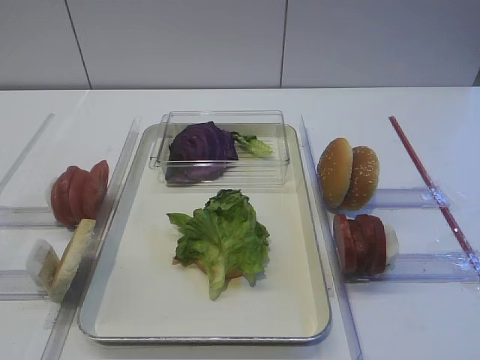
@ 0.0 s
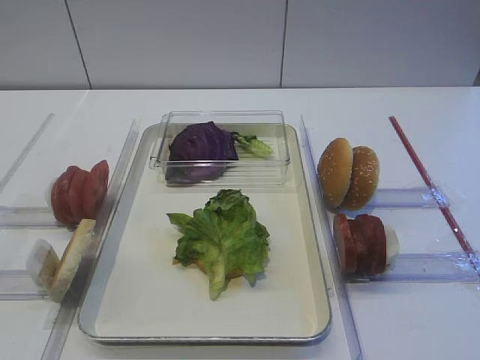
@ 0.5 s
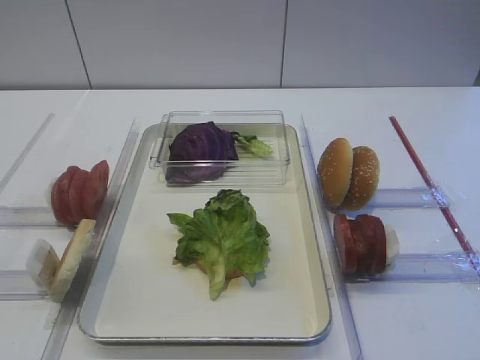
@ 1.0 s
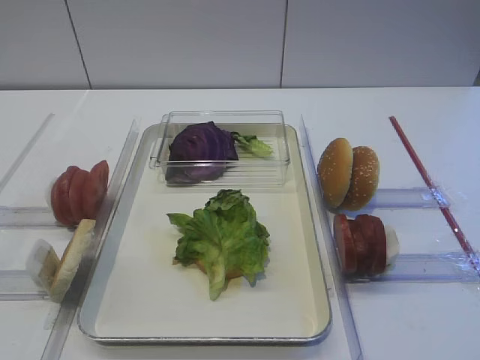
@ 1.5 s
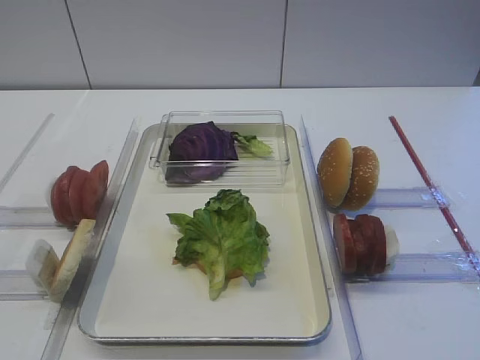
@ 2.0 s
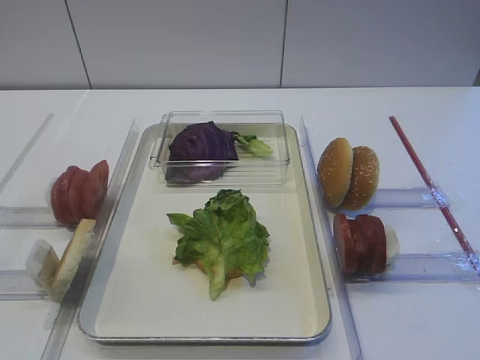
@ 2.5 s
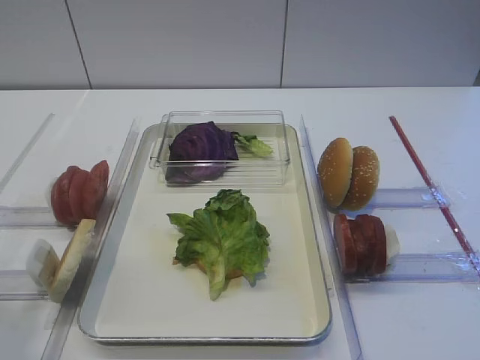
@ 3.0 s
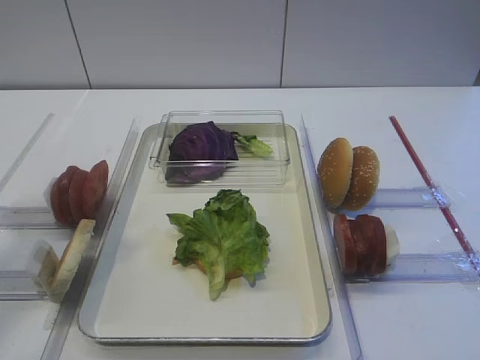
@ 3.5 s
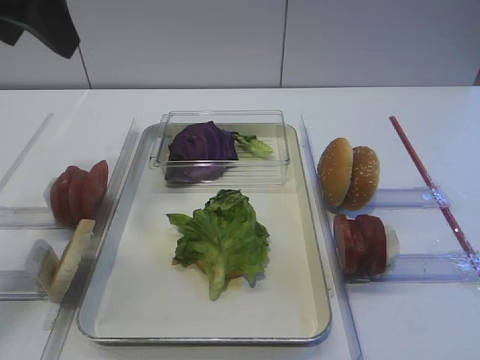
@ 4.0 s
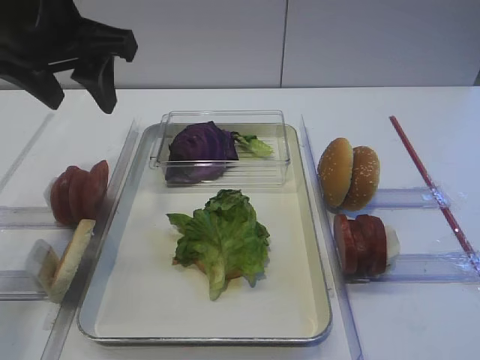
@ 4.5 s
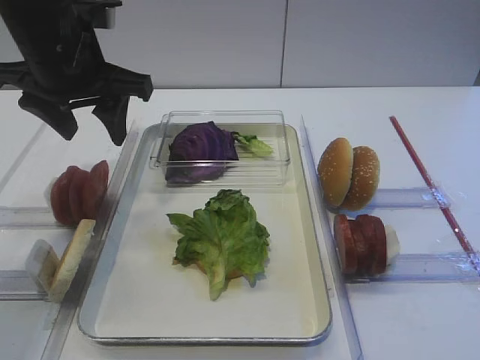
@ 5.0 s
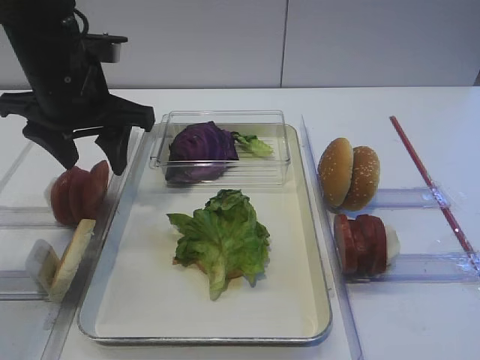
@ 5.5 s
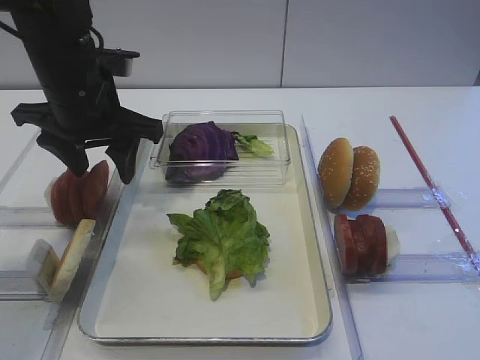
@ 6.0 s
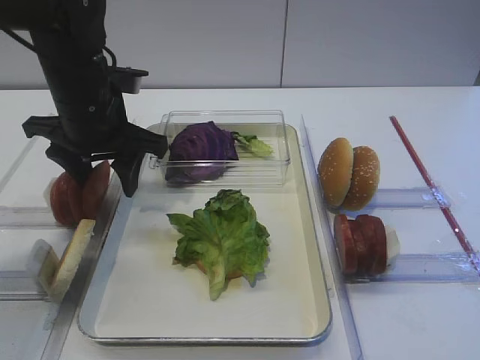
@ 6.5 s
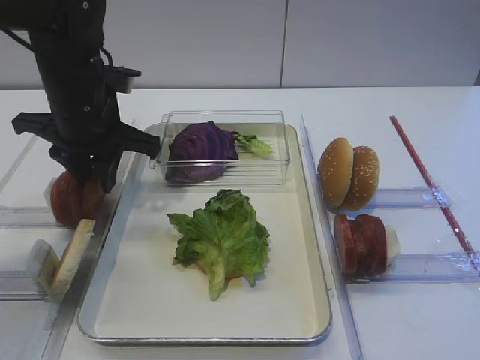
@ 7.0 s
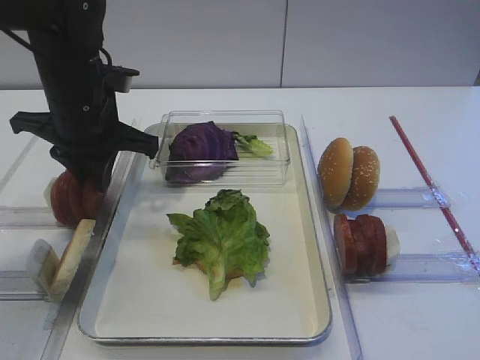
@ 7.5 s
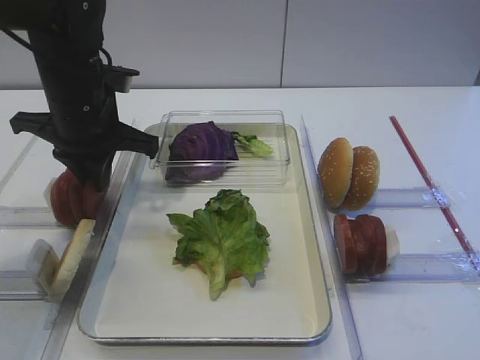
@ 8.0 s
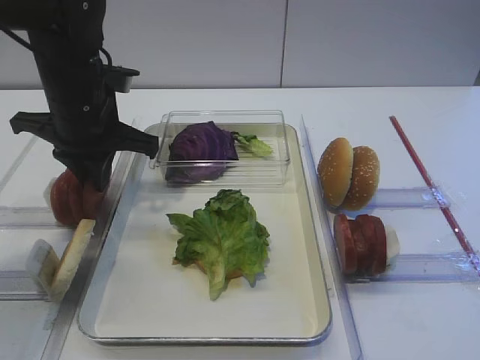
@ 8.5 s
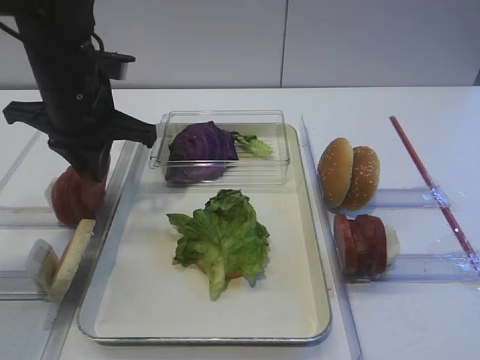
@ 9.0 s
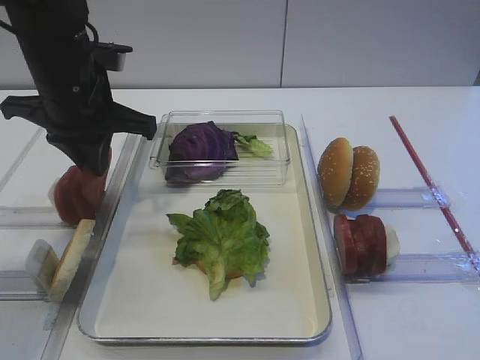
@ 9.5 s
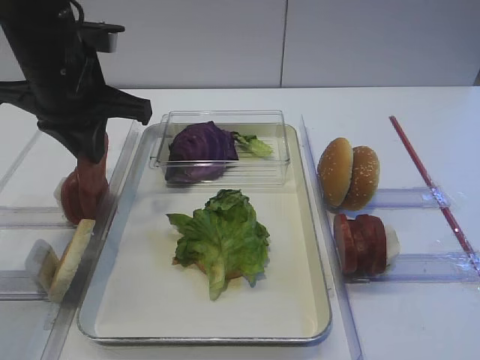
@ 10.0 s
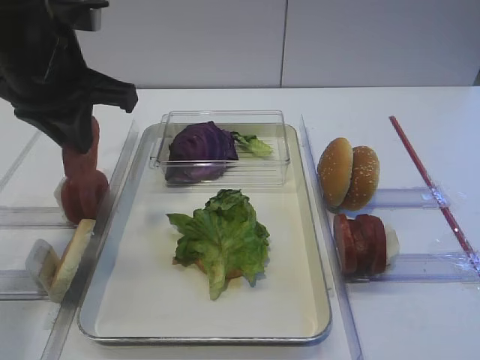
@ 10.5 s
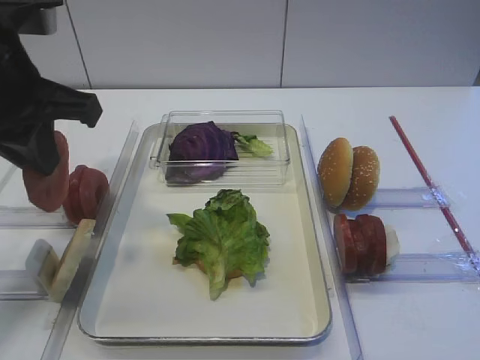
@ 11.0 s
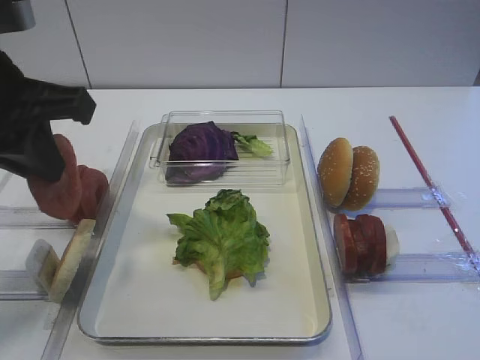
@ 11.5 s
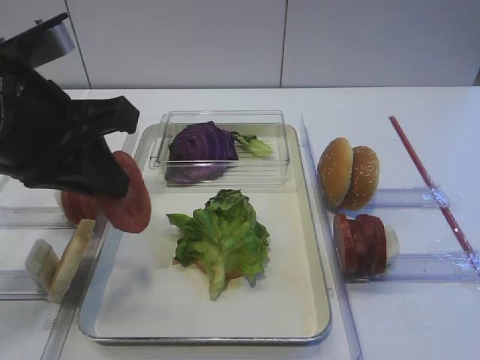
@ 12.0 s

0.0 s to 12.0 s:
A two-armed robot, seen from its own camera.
Step, 0.0 to 10.0 s: Pick up the tomato slice with the left gripper.
2.0 to 4.0 s: The left gripper goes some 30 cm forward and upward.
4.0 to 6.0 s: The left gripper is displaced downward and forward by about 20 cm.
6.0 to 8.0 s: The left gripper closes up.
8.0 to 10.0 s: The left gripper changes place by approximately 5 cm.
10.0 to 12.0 s: The left gripper shifts about 10 cm backward.

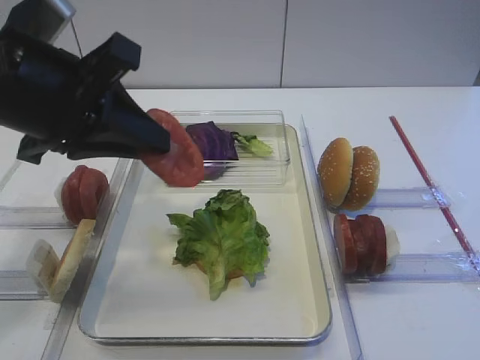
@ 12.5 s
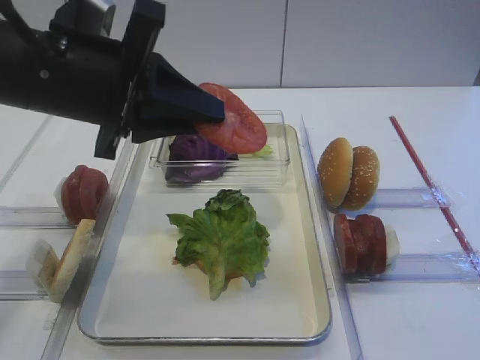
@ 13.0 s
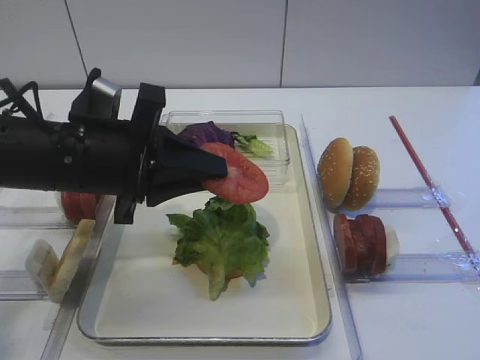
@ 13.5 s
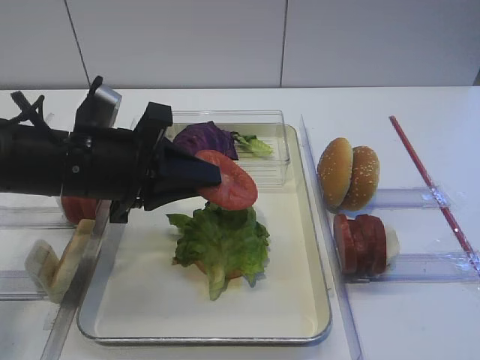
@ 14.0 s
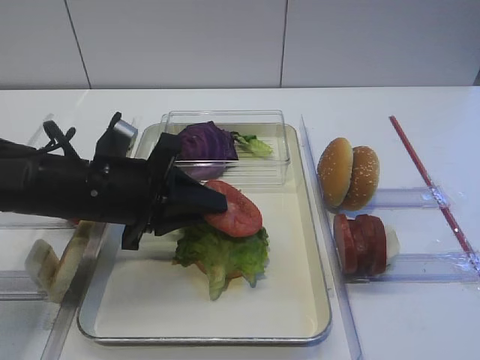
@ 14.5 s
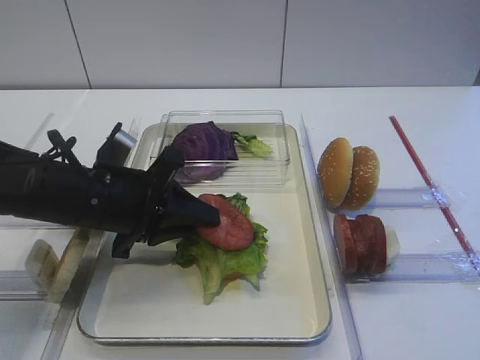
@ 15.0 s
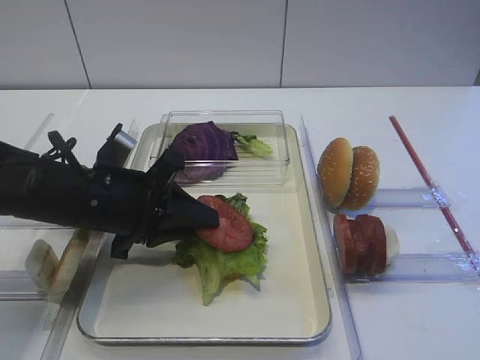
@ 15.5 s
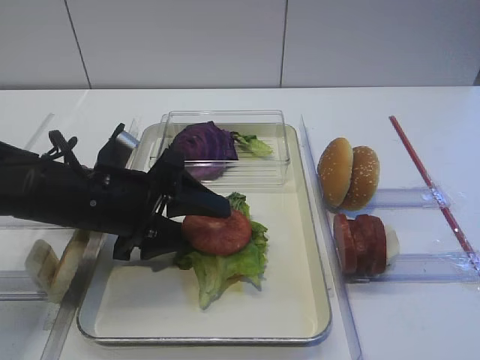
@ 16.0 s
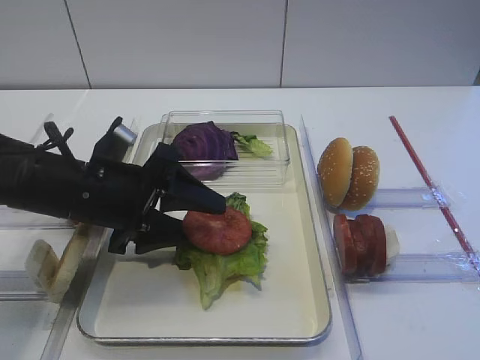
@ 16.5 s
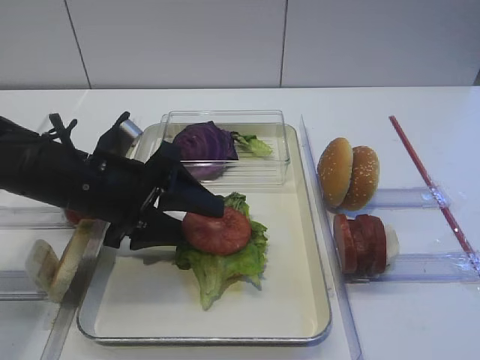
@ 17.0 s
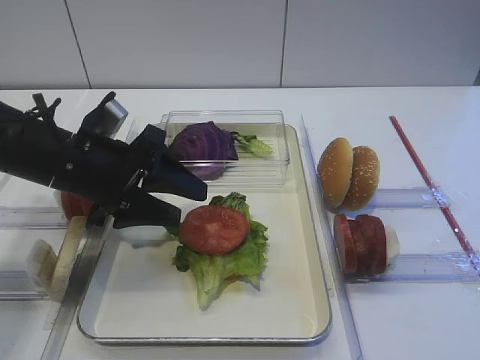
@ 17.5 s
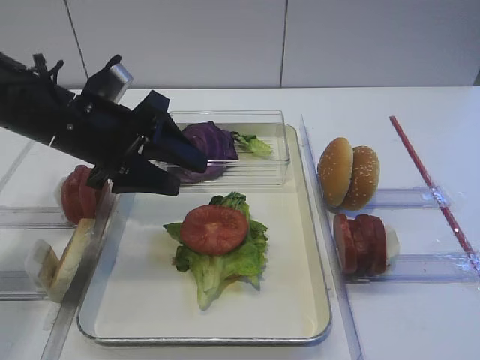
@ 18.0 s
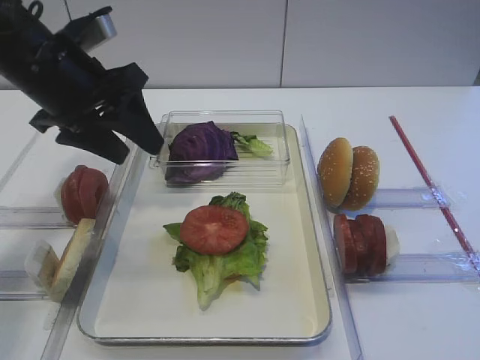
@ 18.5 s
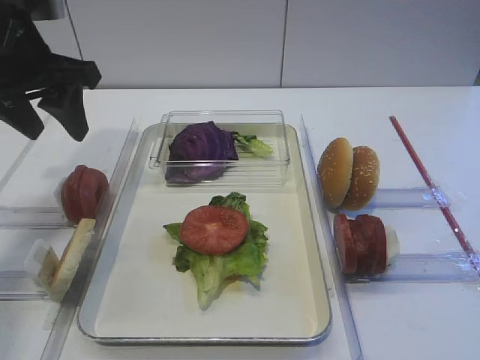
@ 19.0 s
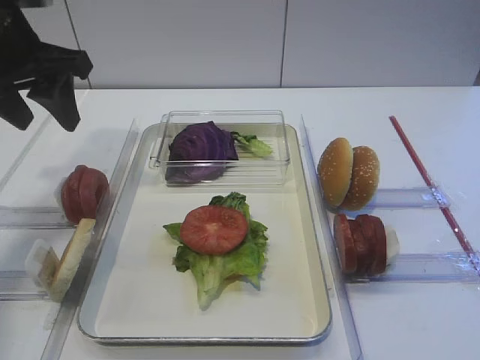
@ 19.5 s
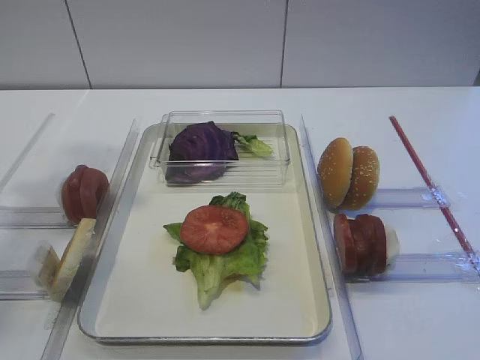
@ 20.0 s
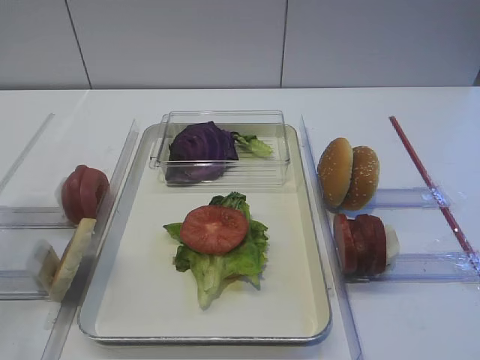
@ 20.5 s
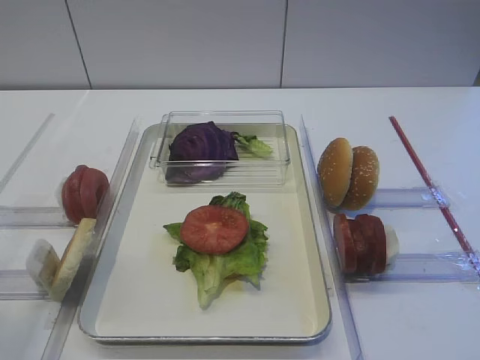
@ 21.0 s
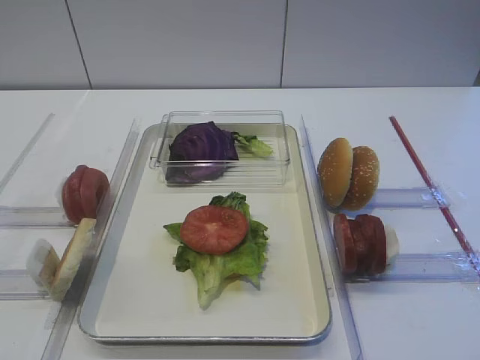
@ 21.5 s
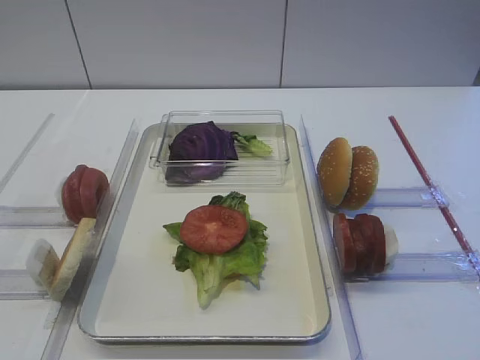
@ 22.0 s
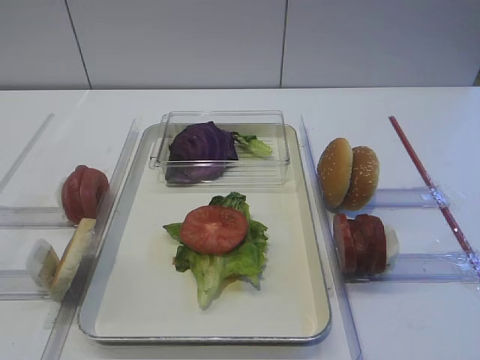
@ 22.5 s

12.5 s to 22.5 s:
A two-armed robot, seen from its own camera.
Step, 12.5 to 16.5 s: Place the tomato slice on the lettuce leaf with the left gripper.
12.5 to 14.5 s: The left gripper goes some 15 cm downward.
14.5 to 16.5 s: The left gripper opens.
16.5 to 18.5 s: The left gripper shifts approximately 10 cm upward and forward.
18.5 to 20.5 s: The left gripper moves backward and upward, about 30 cm.
20.5 to 22.5 s: The left gripper heads downward and backward, covering about 25 cm.

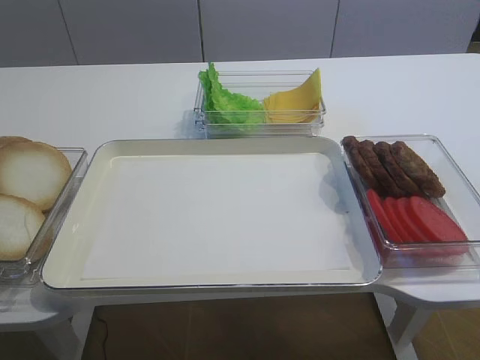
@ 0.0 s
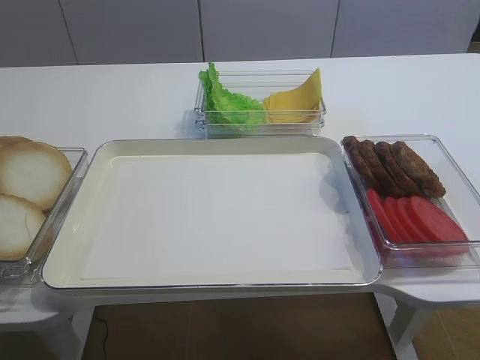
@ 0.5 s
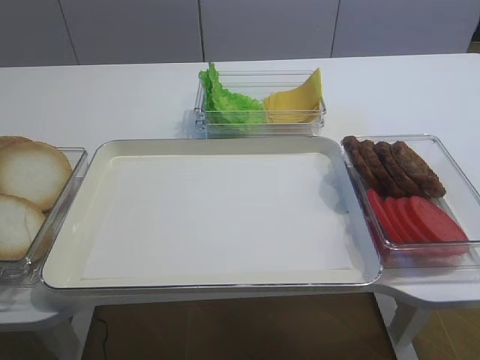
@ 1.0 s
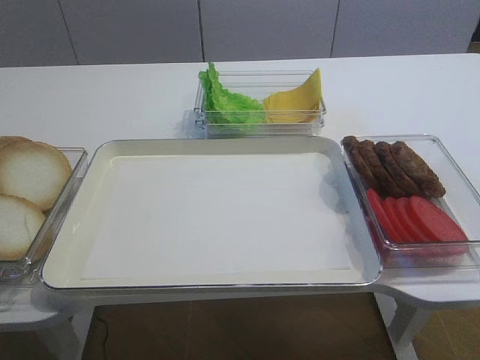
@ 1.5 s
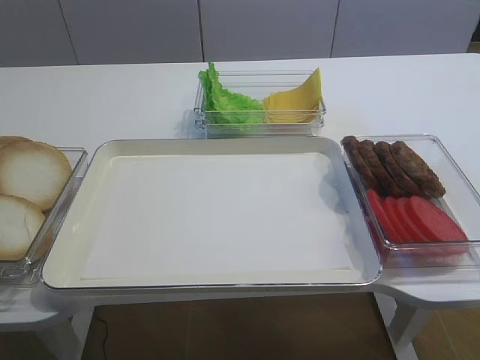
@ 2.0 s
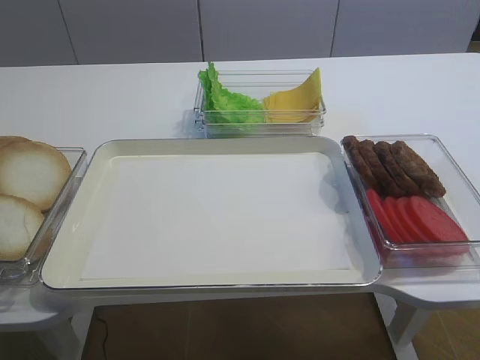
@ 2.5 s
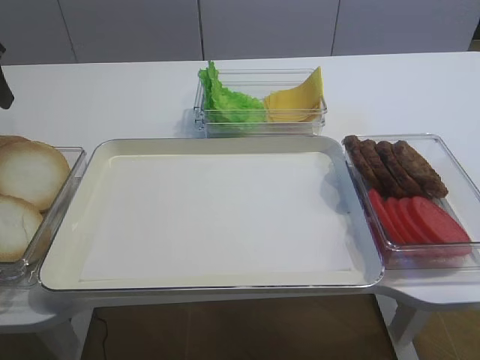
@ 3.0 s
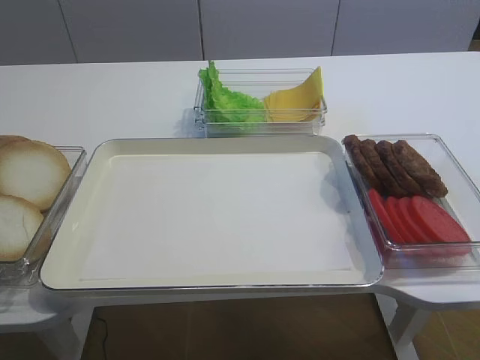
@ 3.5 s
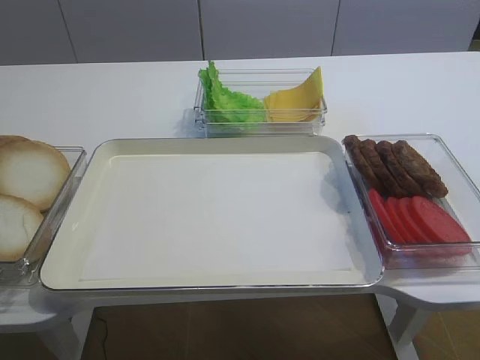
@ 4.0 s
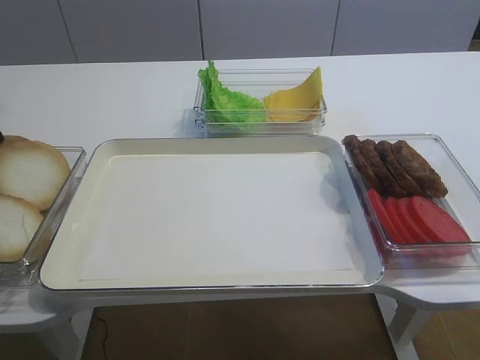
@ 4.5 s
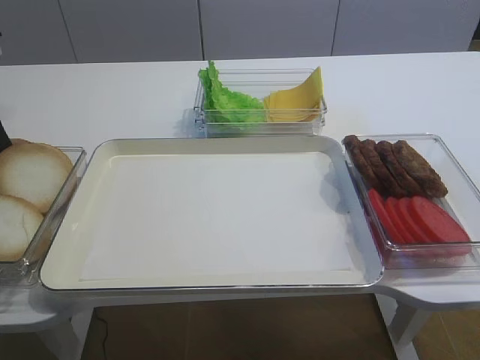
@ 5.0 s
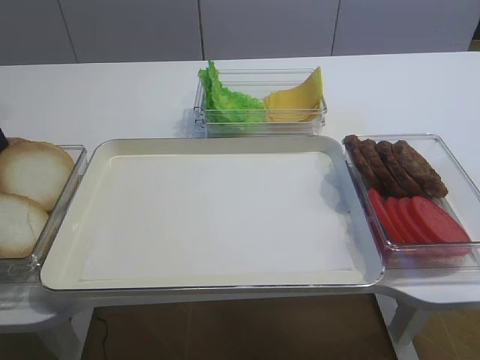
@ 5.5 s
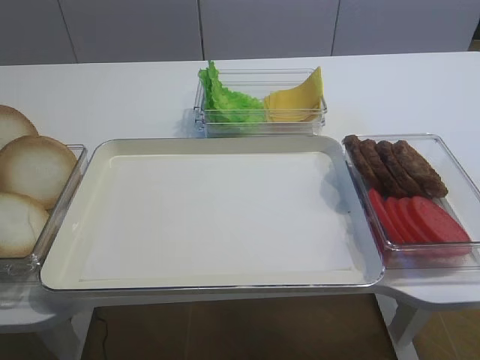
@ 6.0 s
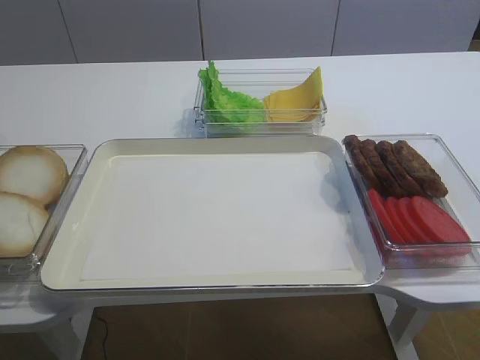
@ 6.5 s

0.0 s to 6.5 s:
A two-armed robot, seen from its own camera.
2.0 to 4.5 s: The left gripper travels forward by some 30 cm.
4.5 to 6.5 s: The left gripper heads upward and backward, covering about 15 cm, and closes its fingers.
